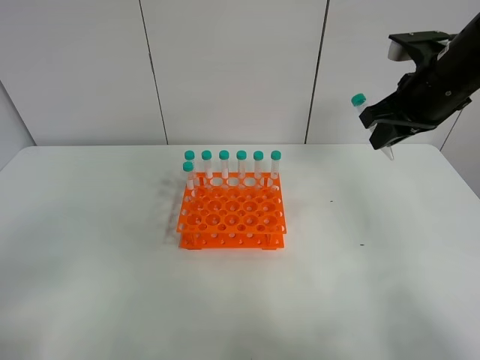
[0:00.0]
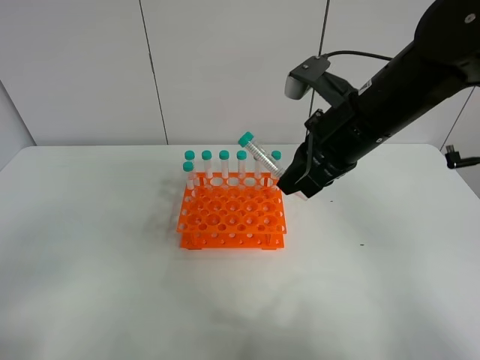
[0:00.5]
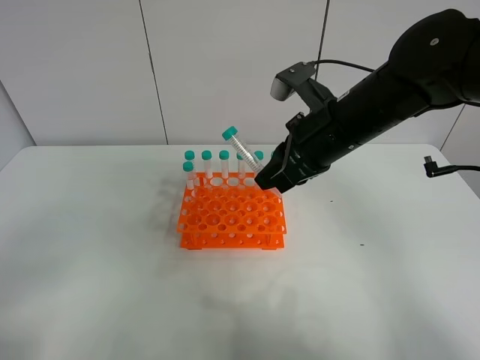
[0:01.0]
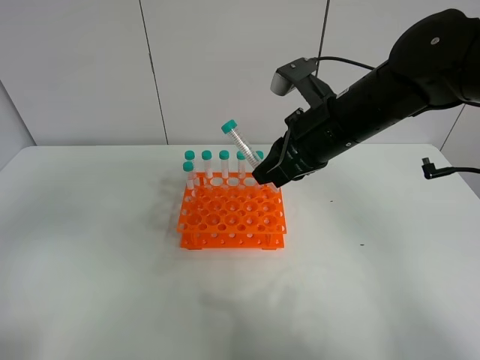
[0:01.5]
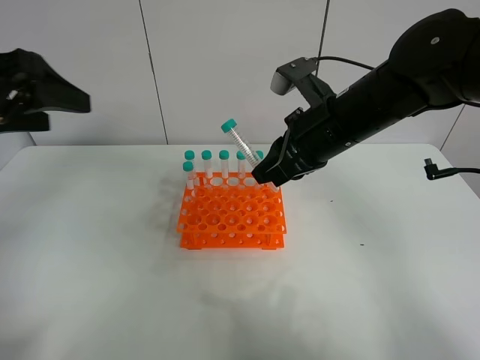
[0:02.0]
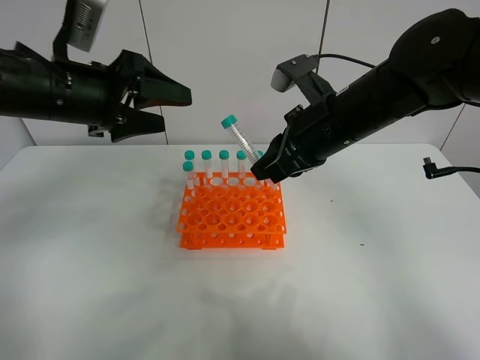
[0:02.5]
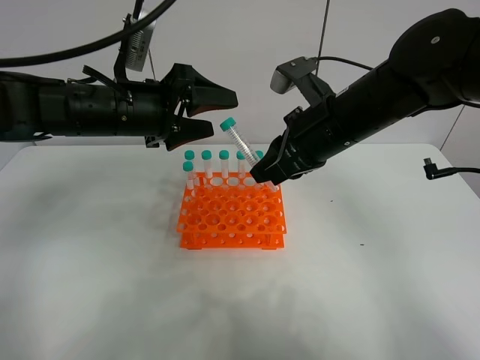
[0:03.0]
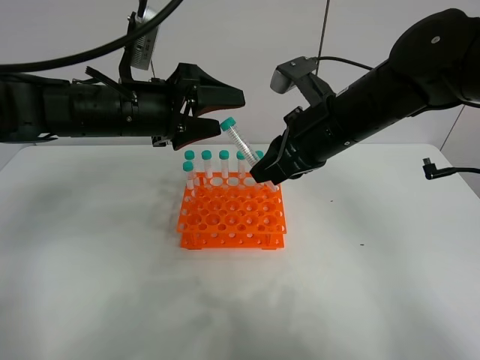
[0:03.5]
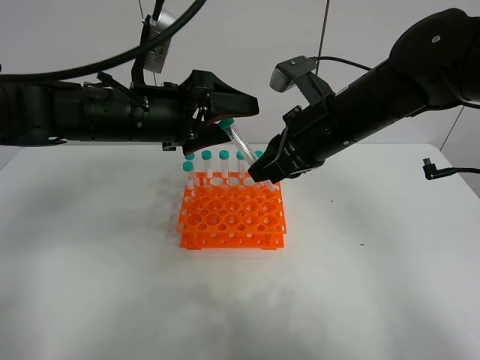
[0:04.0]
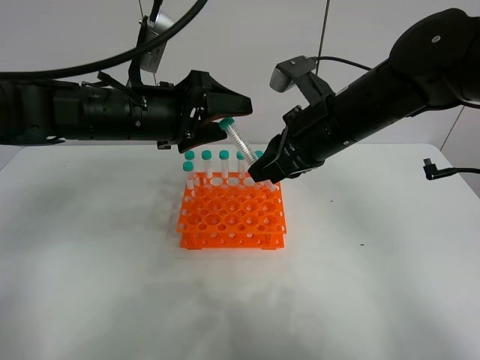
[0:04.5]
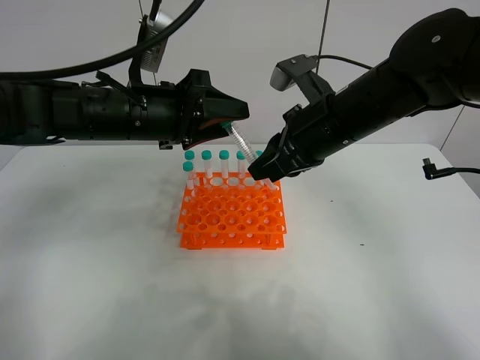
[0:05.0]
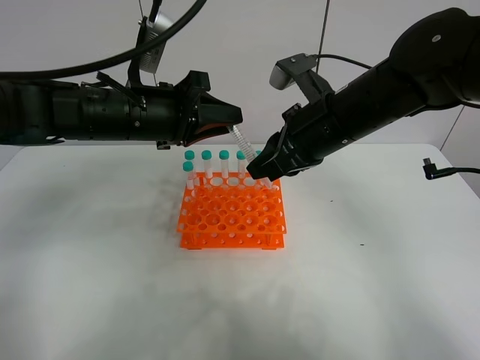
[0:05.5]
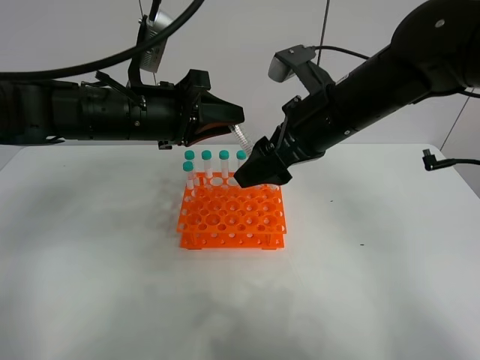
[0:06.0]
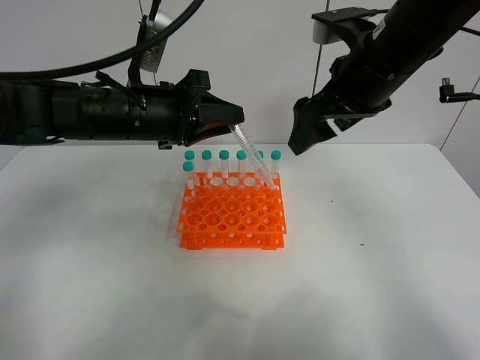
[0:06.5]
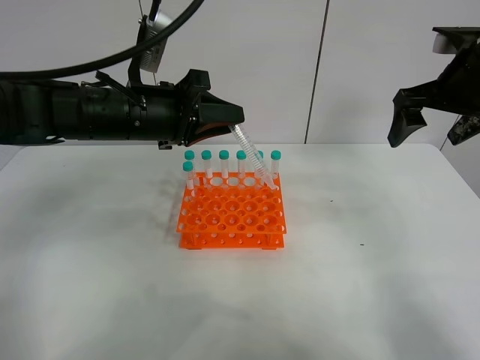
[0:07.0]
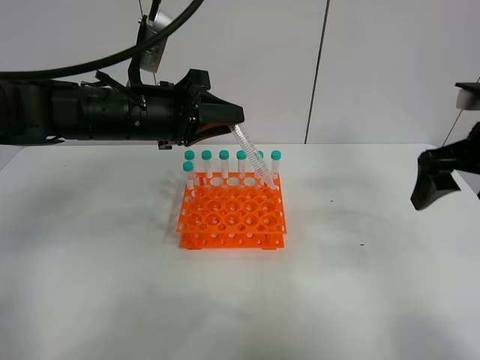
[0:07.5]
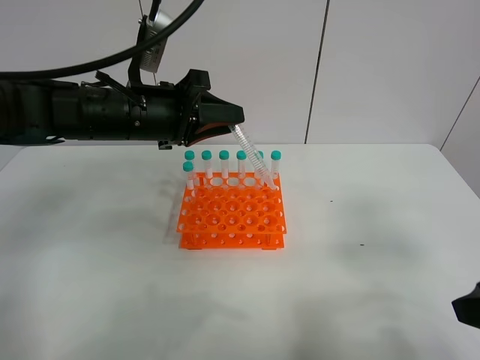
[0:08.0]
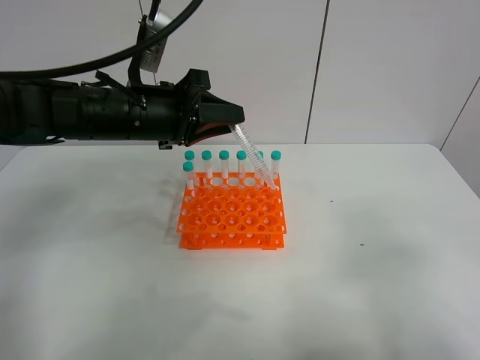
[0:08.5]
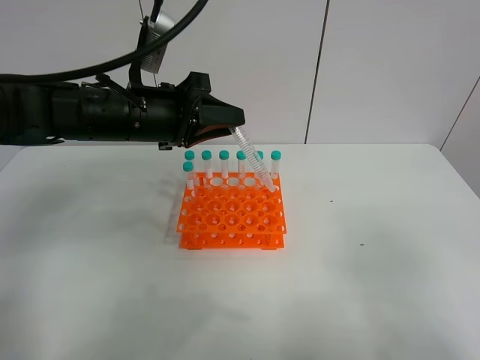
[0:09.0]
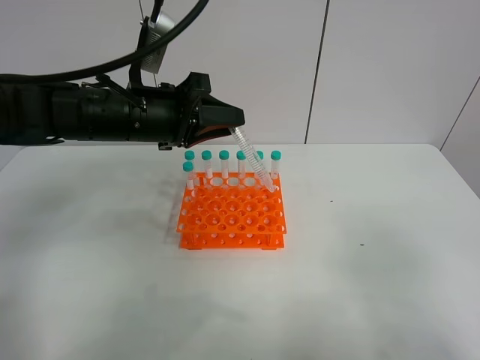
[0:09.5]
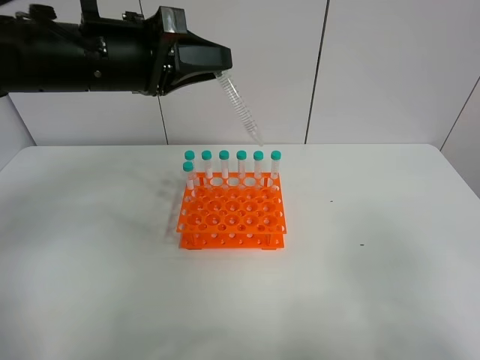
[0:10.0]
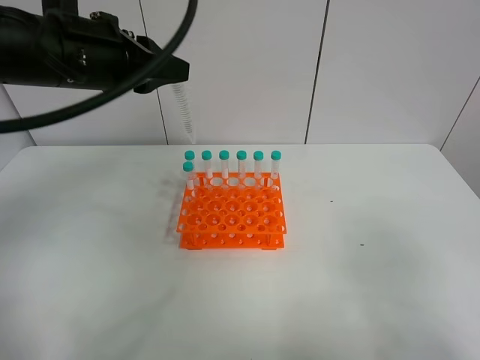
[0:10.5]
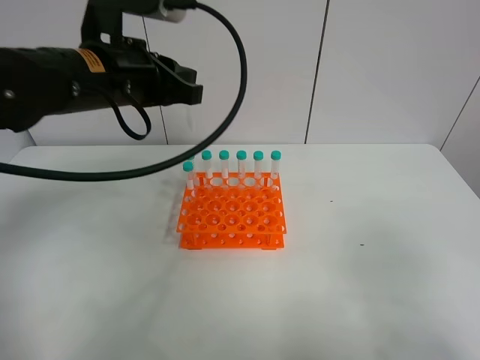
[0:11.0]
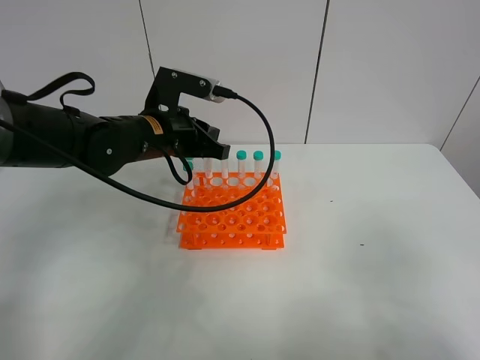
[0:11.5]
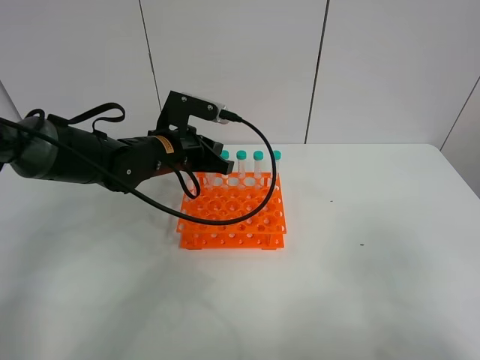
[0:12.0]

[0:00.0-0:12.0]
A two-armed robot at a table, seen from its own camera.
Task of the whole recording: Put the test tube on the table back onto the test tube rack.
Step, 0:00.0 to 0:06.5: Move the test tube from the right gripper to the left gripper.
0:00.0 to 0:02.0: The right gripper travels to the left by approximately 10 cm; the left gripper moves forward, some 25 cm.
0:02.0 to 0:04.0: The left gripper moves to the right, downward and forward, some 20 cm.
0:04.0 to 0:06.0: The right gripper opens its fingers. Meanwhile the left gripper closes up.
0:06.0 to 0:08.0: The right gripper travels backward and to the right by some 25 cm.
0:08.0 to 0:10.0: The left gripper travels upward by some 10 cm. The right gripper travels backward by some 10 cm.
0:10.0 to 0:12.0: The left gripper shifts roughly 15 cm downward and forward.

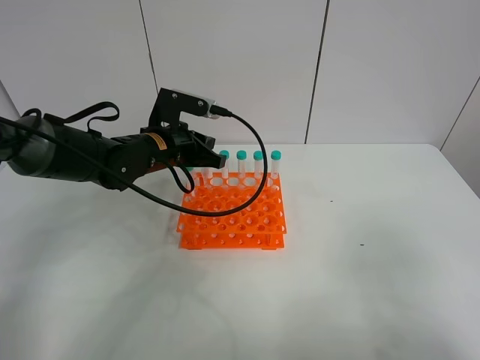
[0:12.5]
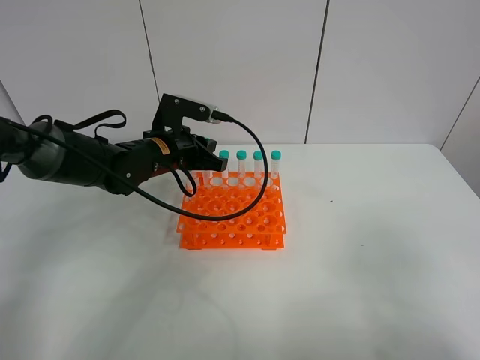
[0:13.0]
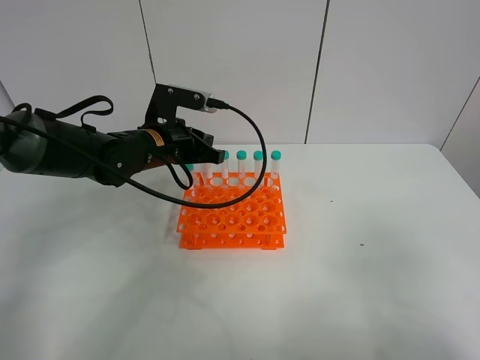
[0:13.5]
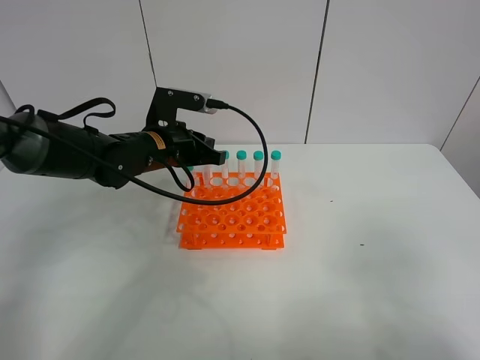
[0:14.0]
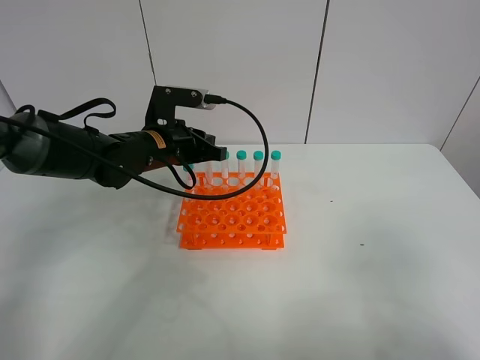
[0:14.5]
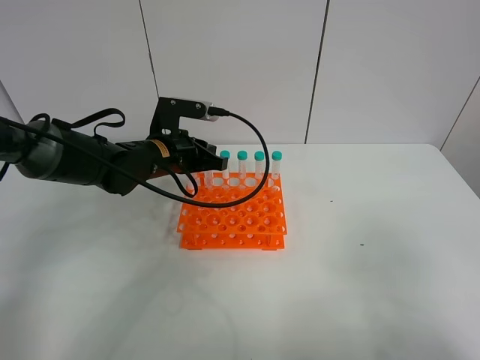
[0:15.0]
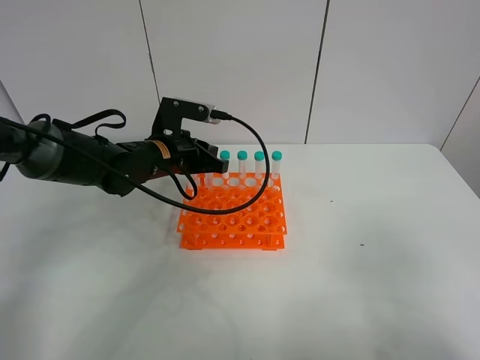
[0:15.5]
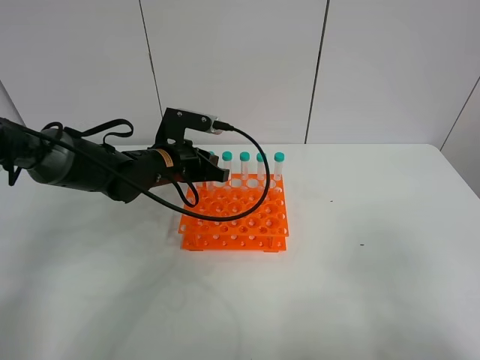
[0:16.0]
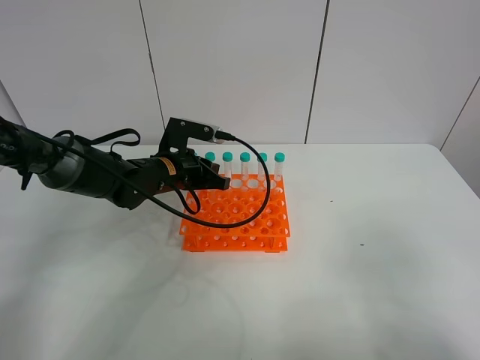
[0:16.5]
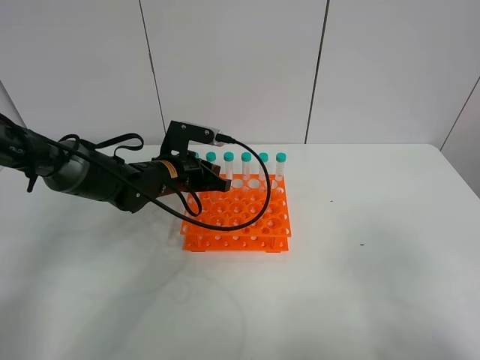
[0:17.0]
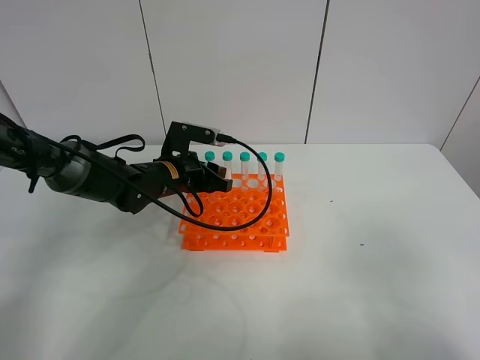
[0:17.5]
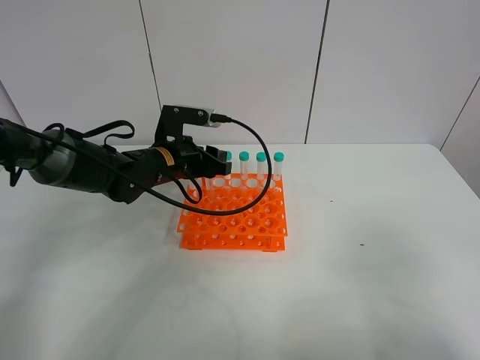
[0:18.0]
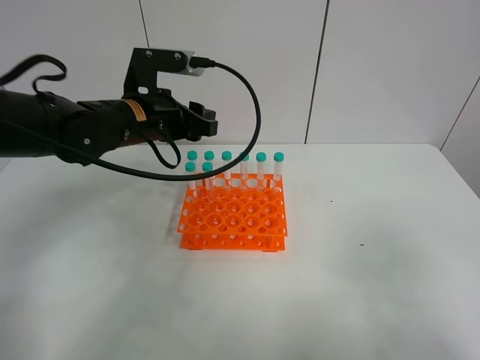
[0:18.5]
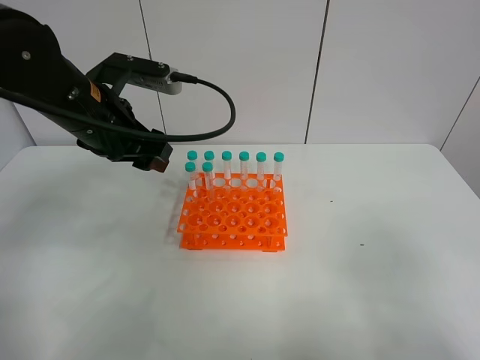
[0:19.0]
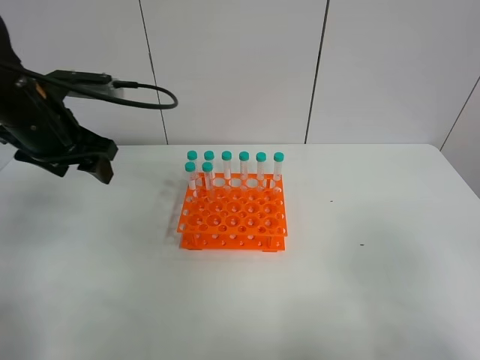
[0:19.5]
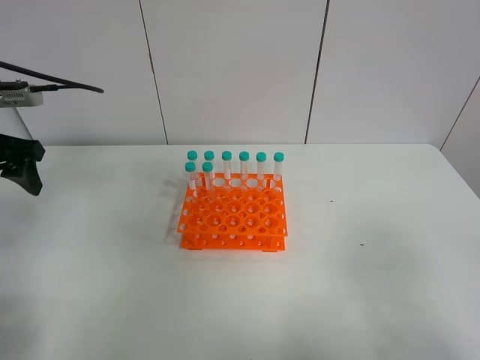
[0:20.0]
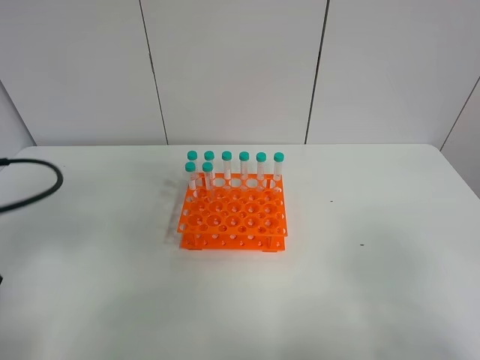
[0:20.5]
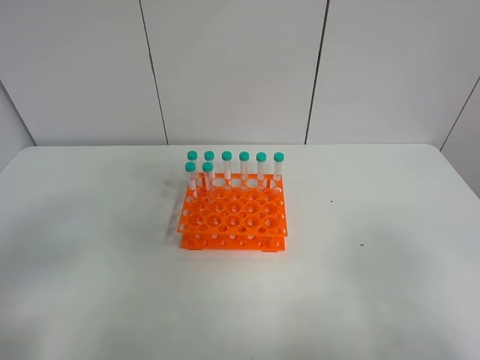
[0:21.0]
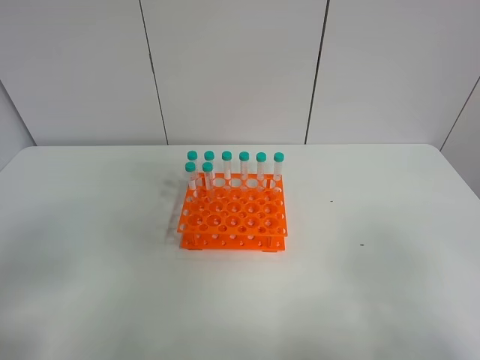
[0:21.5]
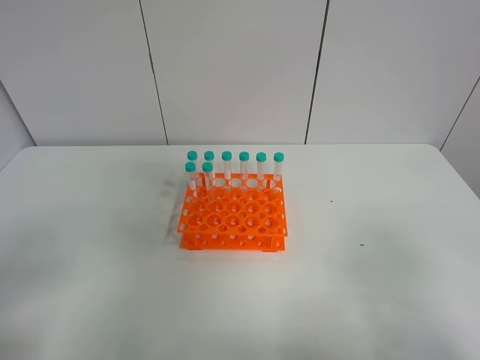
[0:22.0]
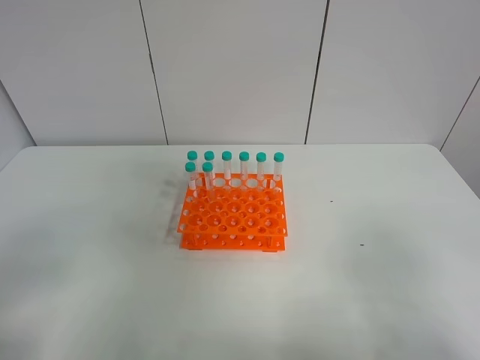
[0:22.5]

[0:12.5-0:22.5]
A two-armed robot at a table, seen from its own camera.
Task of the whole recording: Put the test tube on the table back onto the test tube rack.
Step, 0:12.5 to 0:18.0: Place the test tube on the test tube rack with the left gripper.
0:12.5 to 0:14.5: The grippers make only small movements.
0:14.5 to 0:16.5: The left gripper heads downward, covering about 5 cm.
0:16.5 to 0:18.5: The left gripper is displaced upward by some 10 cm, and opens up.
0:18.5 to 0:20.5: The left gripper travels backward and to the left by some 25 cm.
0:20.5 to 0:22.5: The left gripper heads backward, covering some 15 cm.

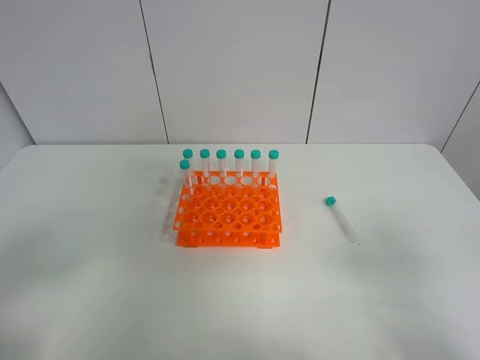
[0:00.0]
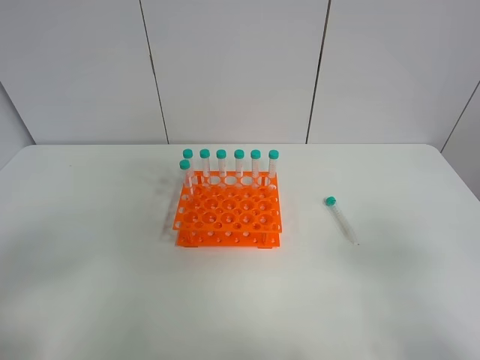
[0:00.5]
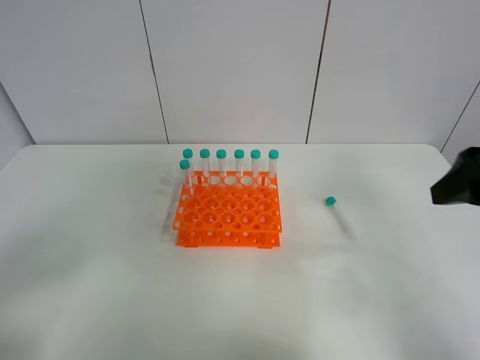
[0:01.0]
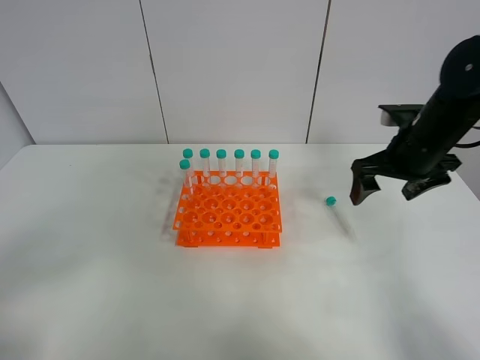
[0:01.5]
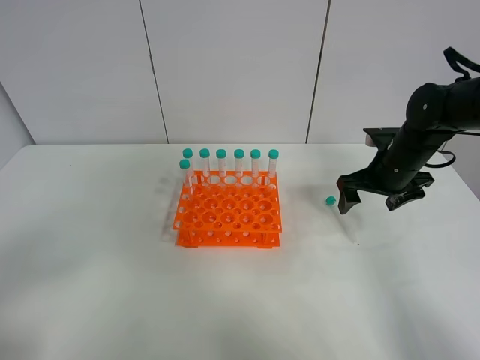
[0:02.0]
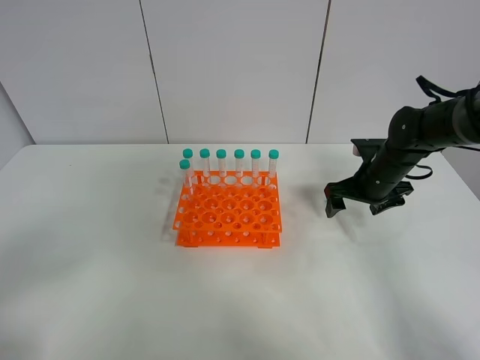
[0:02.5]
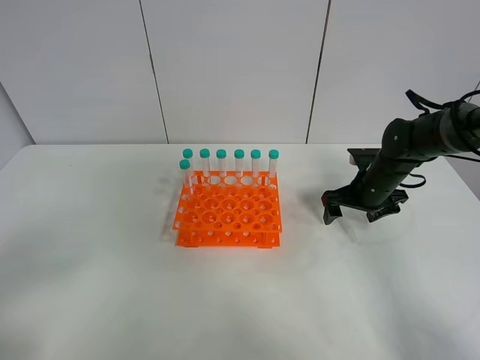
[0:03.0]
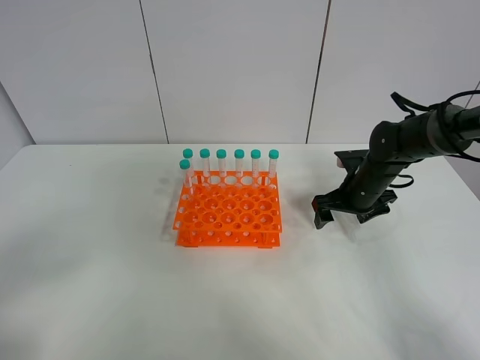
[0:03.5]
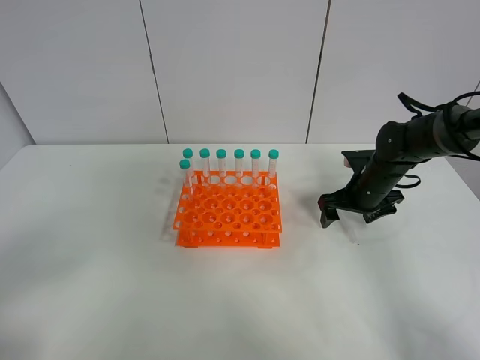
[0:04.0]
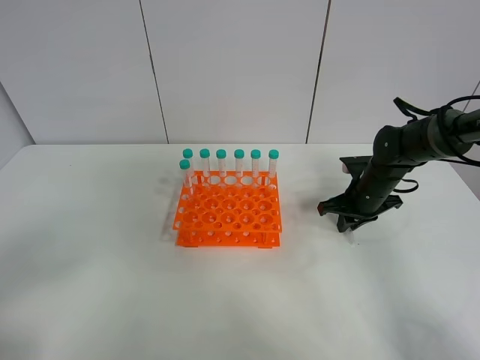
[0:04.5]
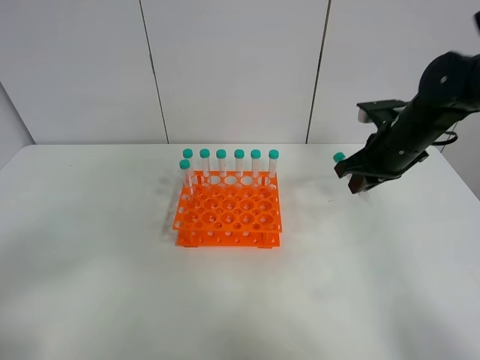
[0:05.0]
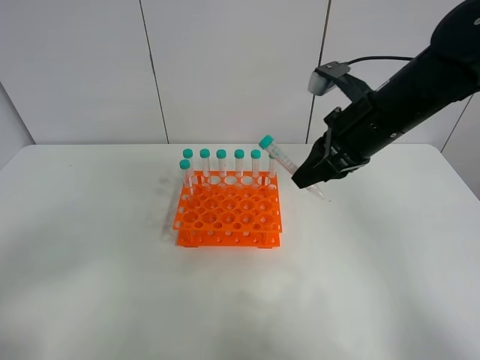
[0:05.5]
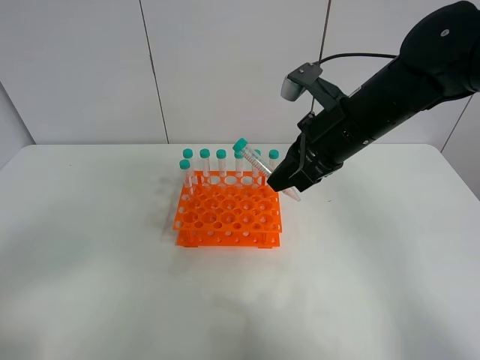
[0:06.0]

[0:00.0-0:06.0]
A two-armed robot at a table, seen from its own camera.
Task of the whole recording: Put the test tube on the table back onto the test tube rack.
Step, 0:00.0 to 0:05.0: Pick up the test tube with the right gripper.
0:00.0 to 0:02.0: The right gripper moves forward, approximately 35 cm.
0:02.0 to 0:04.0: The right gripper shifts some 5 cm downward.
0:04.0 to 0:06.0: The right gripper moves upward, to the left and backward, about 20 cm, and closes its fingers.
